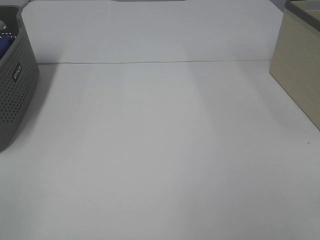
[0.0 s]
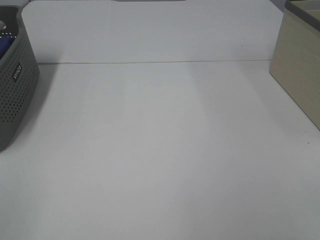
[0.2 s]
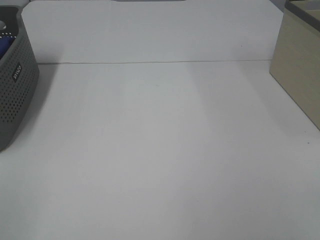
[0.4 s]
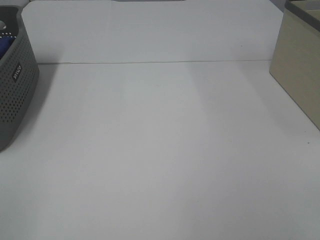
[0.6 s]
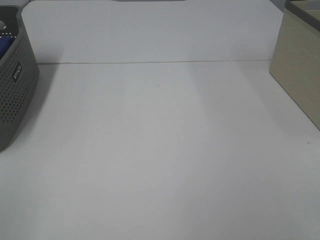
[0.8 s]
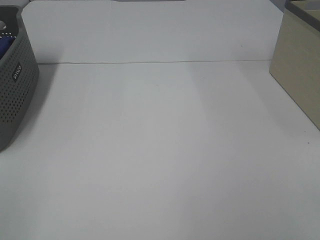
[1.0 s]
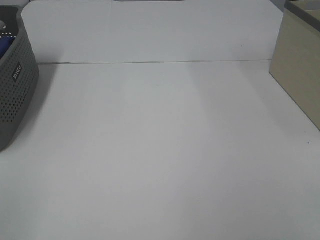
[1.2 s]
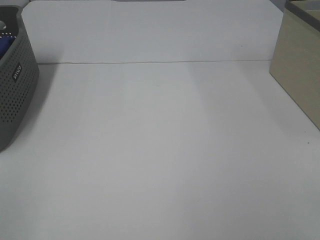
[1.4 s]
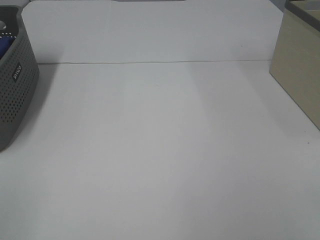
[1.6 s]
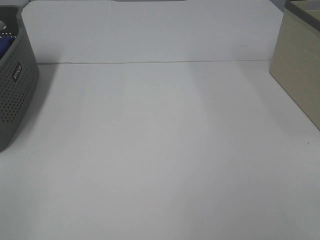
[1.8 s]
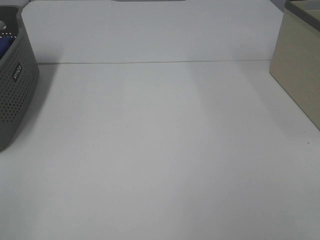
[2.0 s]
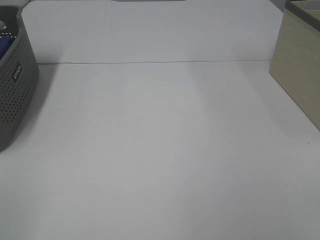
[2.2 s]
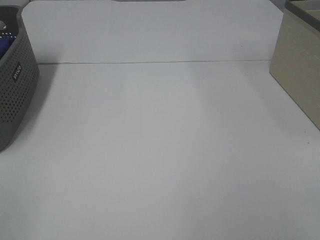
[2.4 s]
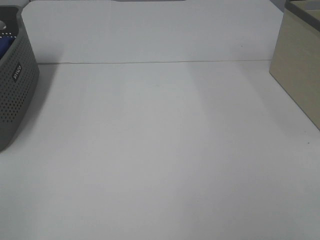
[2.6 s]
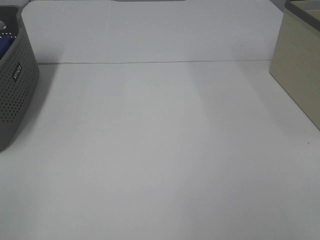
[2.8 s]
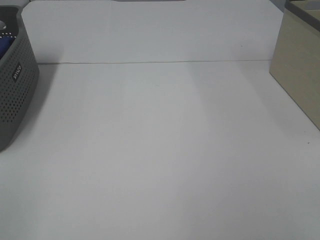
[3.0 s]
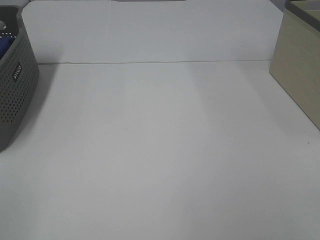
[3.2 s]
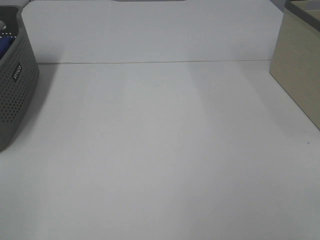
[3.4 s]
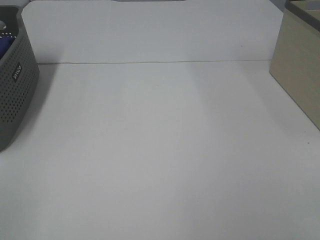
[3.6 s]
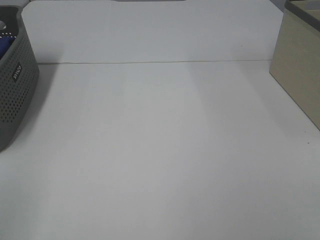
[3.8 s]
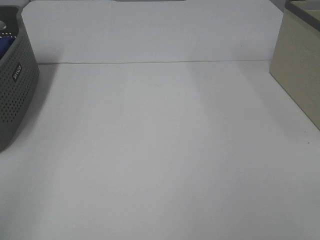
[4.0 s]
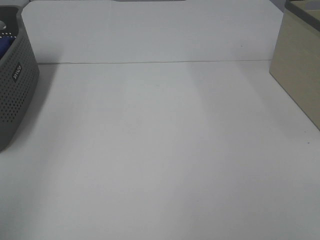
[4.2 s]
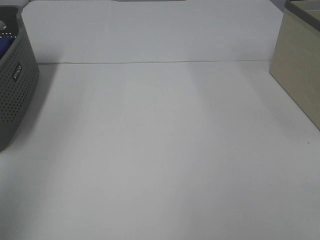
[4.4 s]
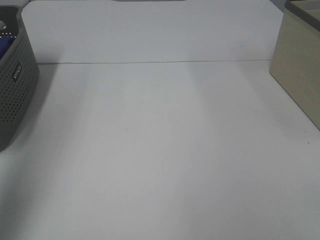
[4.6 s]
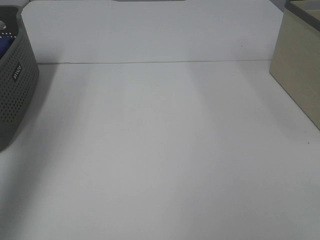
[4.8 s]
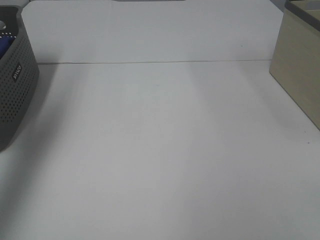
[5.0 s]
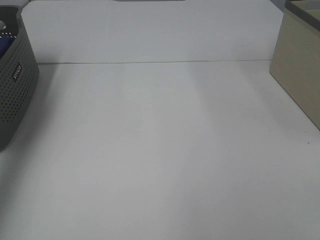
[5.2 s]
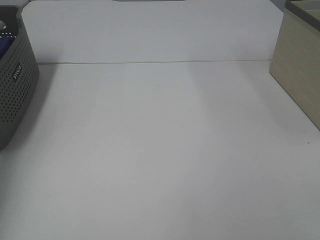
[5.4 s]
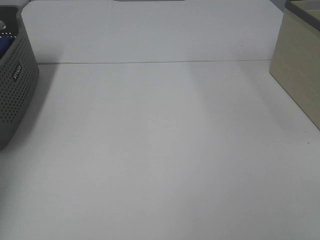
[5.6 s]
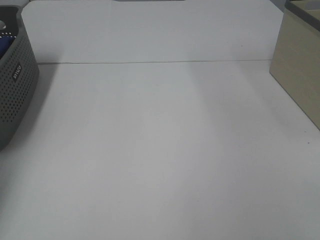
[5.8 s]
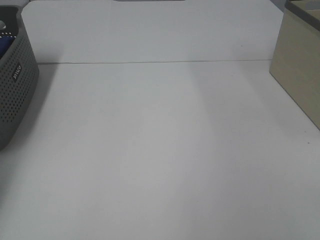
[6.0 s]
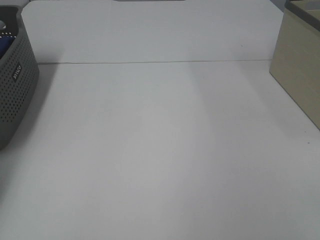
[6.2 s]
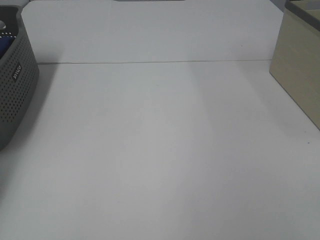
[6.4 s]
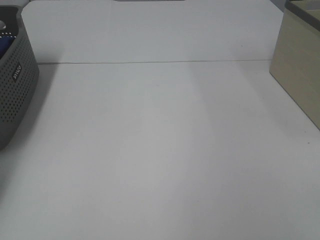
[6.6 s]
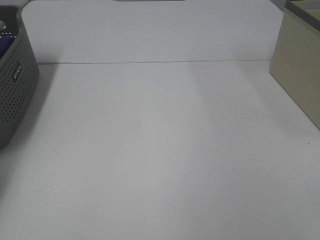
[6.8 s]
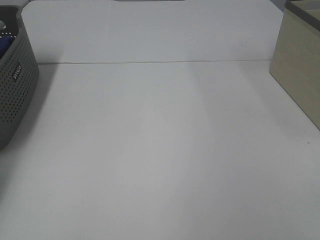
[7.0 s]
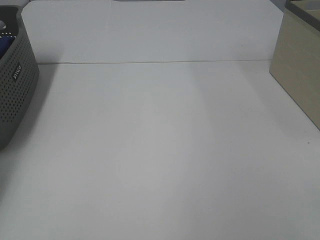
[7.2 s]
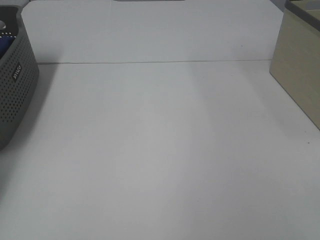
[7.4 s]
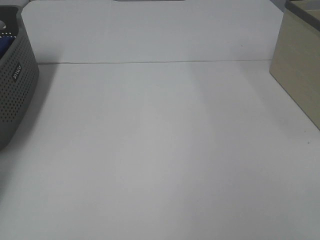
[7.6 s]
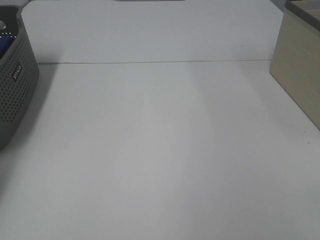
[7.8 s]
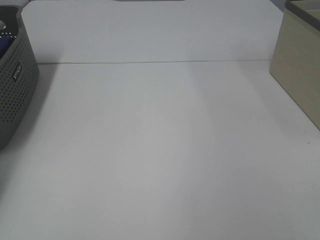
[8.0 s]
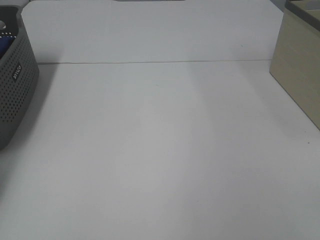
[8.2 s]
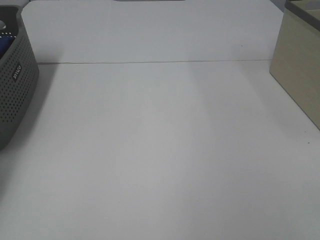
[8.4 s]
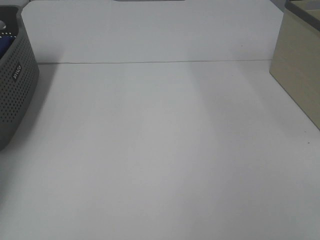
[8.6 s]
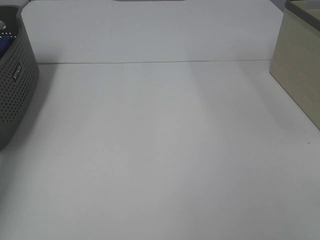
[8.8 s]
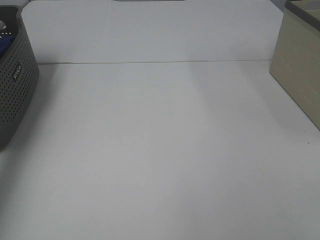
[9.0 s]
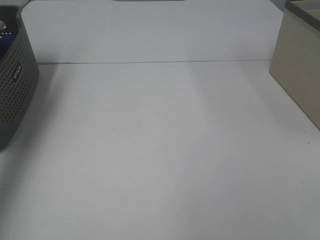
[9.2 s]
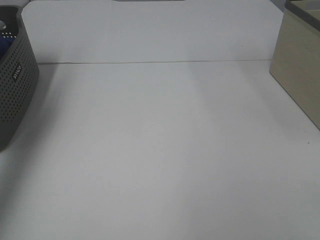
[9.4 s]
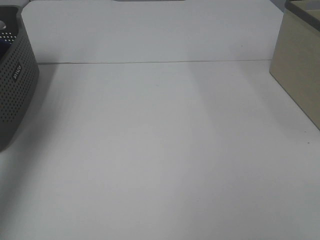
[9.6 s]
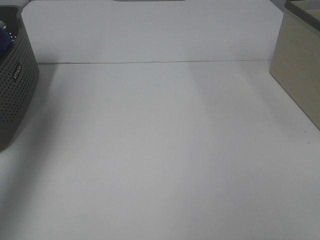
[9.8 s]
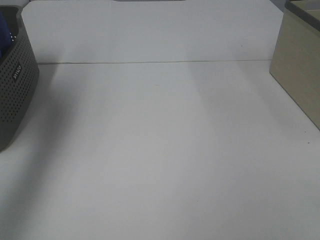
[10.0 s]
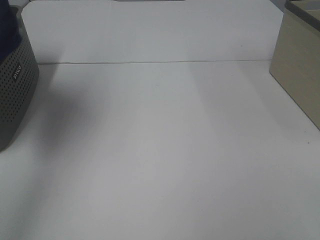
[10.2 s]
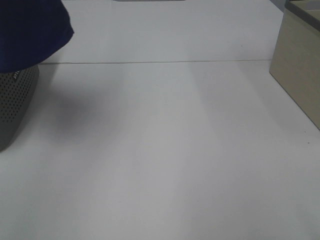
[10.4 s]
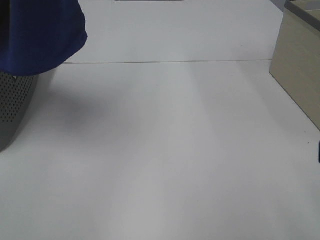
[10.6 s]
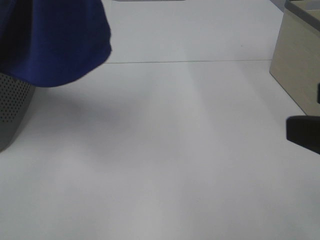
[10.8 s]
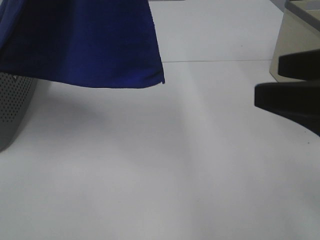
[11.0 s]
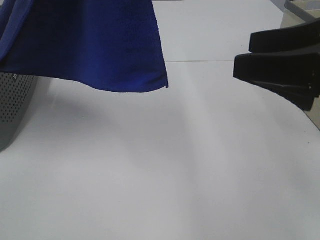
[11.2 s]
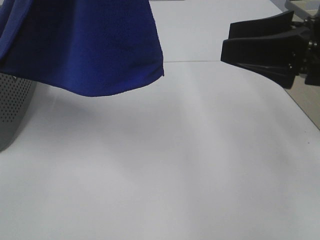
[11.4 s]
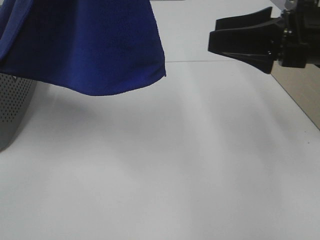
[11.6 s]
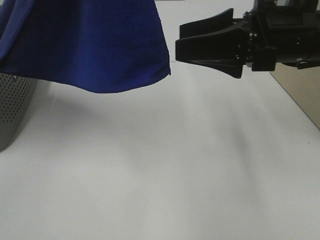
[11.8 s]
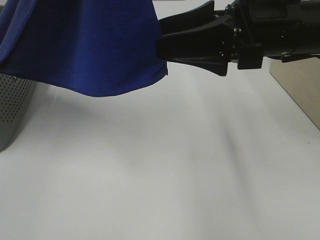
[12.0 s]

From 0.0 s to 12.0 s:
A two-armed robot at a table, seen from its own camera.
Task of the whole recording: Remove the towel and place it.
From 0.0 s to 3.0 s: The two grippers keep their place.
From 3.0 s to 4.4 s: The left gripper travels upward and forward by some 20 cm.
From 4.4 s to 6.0 s: The left gripper shifts some 40 cm forward and downward.
From 7.6 s to 9.0 s: The left gripper travels upward by some 20 cm, and closes up.
From 9.0 s to 10.4 s: The left gripper travels upward, to the right and backward by some 30 cm.
From 10.4 s to 12.0 s: The left gripper heads to the right and backward, covering some 10 cm. Meanwhile the right gripper travels forward and to the left by roughly 25 cm.

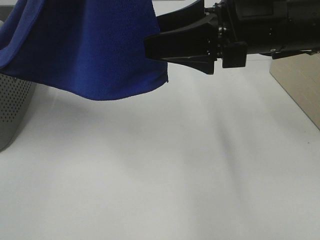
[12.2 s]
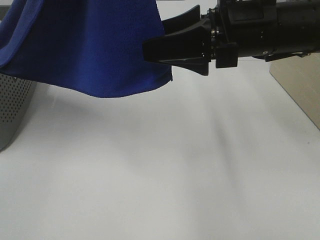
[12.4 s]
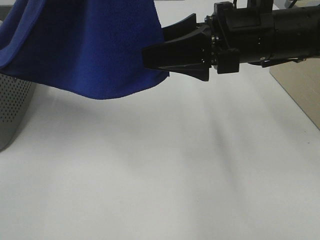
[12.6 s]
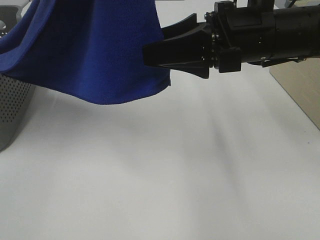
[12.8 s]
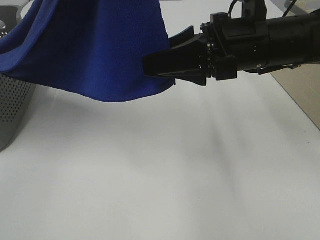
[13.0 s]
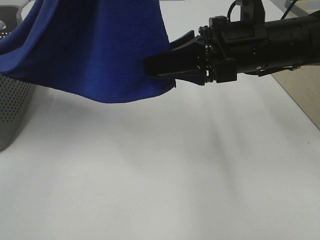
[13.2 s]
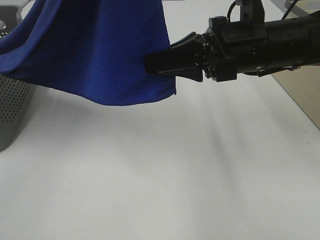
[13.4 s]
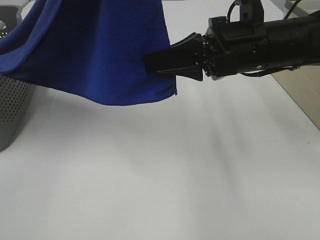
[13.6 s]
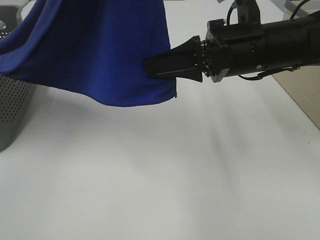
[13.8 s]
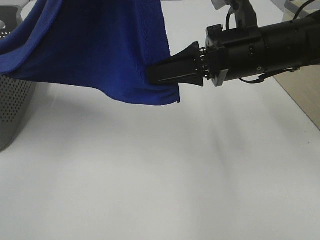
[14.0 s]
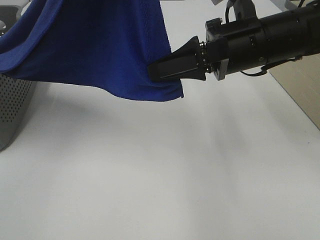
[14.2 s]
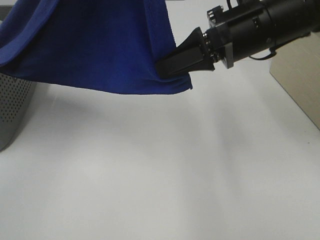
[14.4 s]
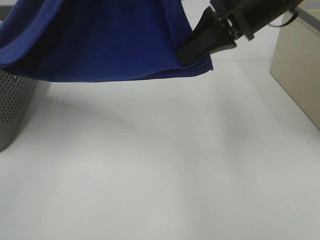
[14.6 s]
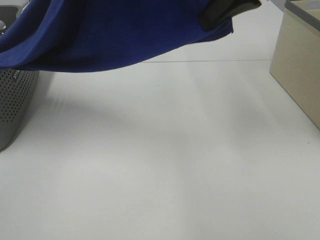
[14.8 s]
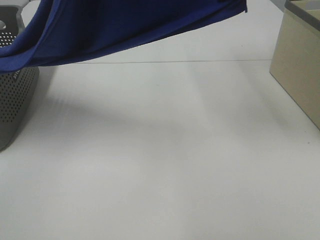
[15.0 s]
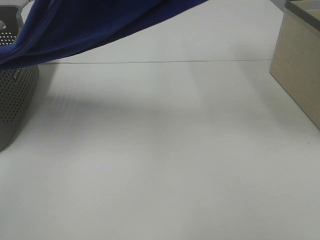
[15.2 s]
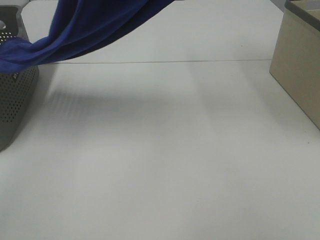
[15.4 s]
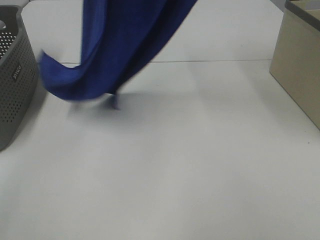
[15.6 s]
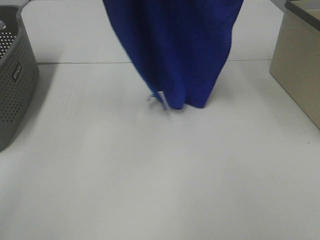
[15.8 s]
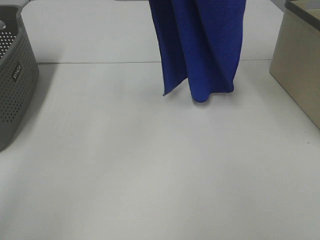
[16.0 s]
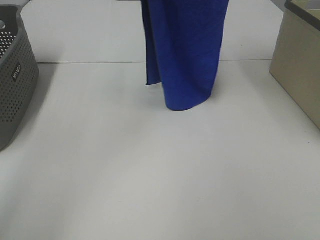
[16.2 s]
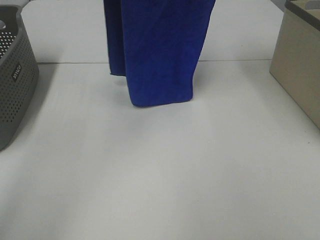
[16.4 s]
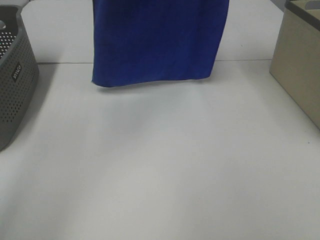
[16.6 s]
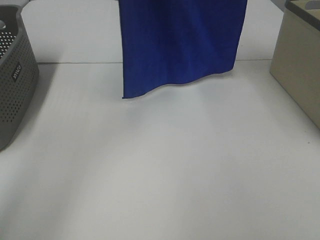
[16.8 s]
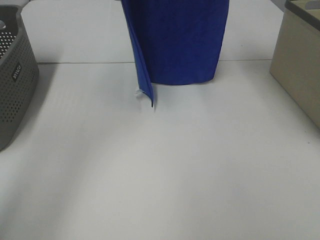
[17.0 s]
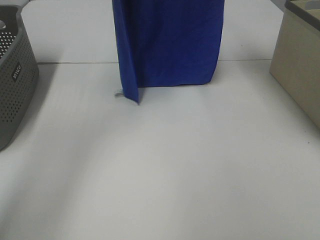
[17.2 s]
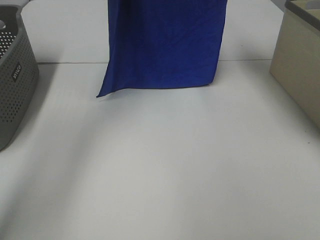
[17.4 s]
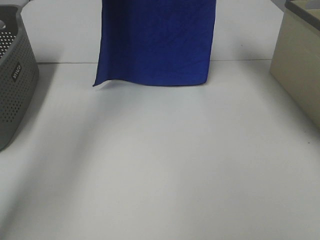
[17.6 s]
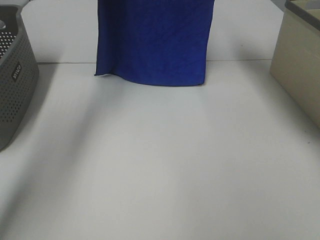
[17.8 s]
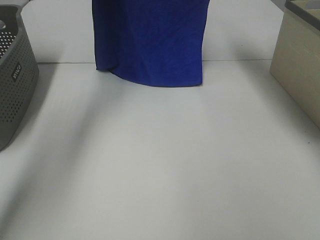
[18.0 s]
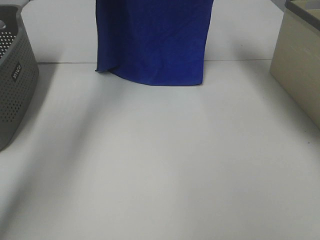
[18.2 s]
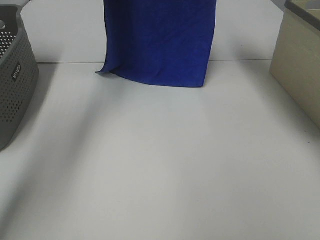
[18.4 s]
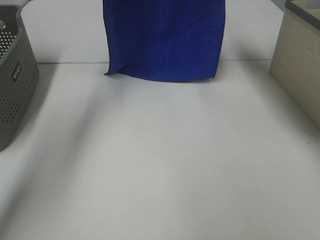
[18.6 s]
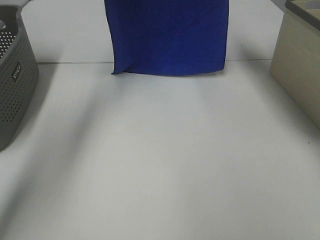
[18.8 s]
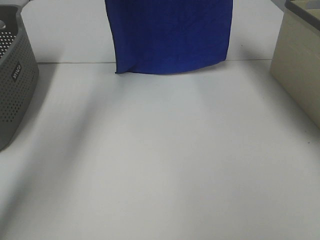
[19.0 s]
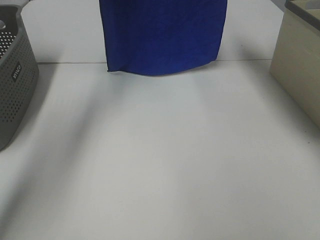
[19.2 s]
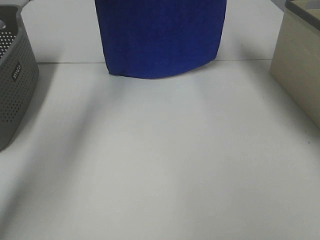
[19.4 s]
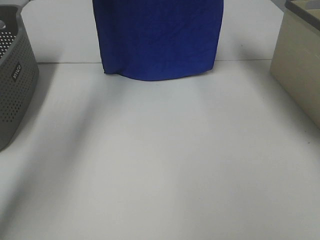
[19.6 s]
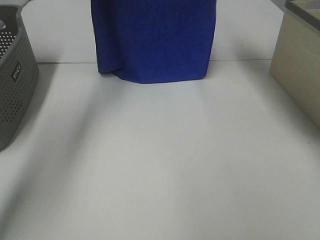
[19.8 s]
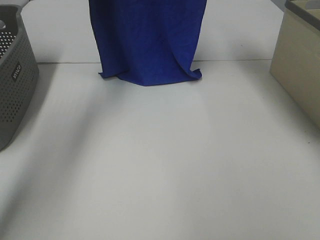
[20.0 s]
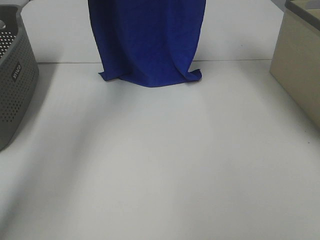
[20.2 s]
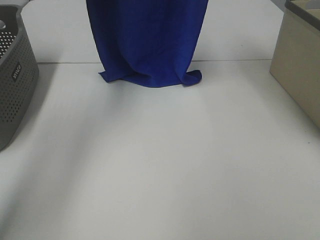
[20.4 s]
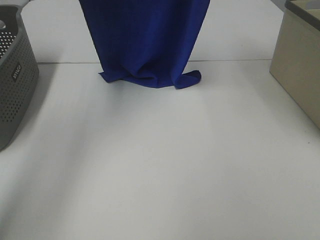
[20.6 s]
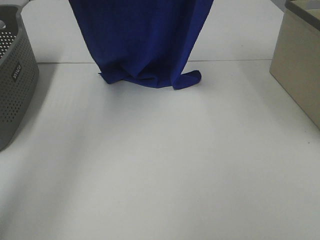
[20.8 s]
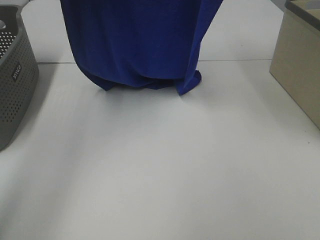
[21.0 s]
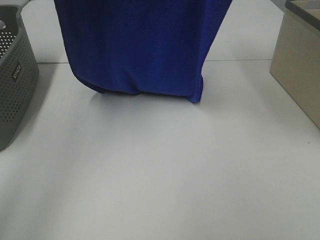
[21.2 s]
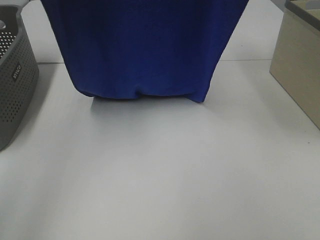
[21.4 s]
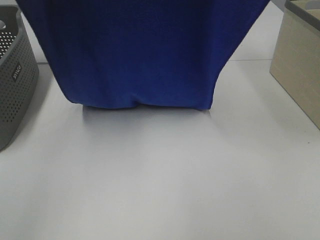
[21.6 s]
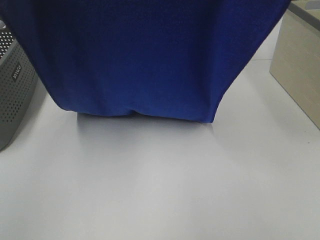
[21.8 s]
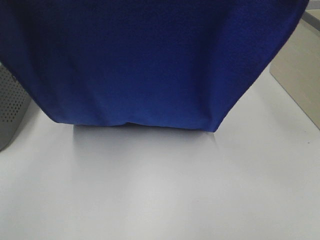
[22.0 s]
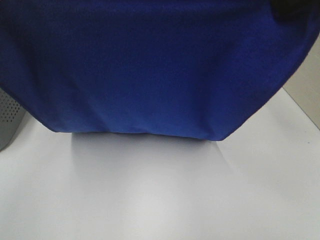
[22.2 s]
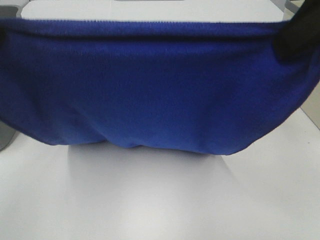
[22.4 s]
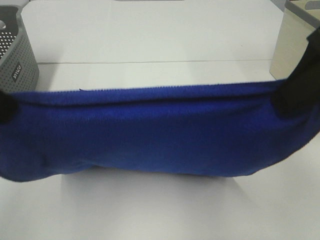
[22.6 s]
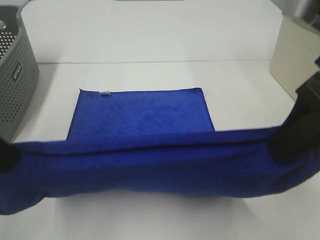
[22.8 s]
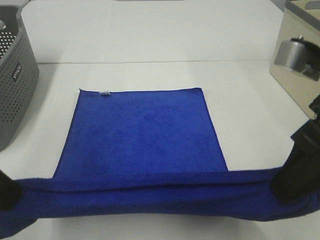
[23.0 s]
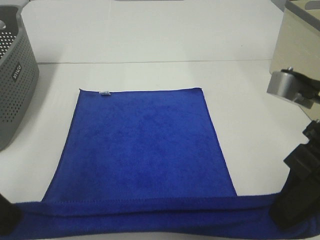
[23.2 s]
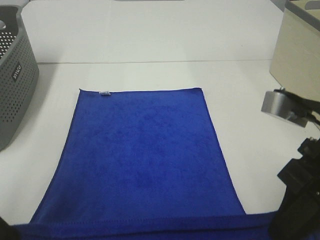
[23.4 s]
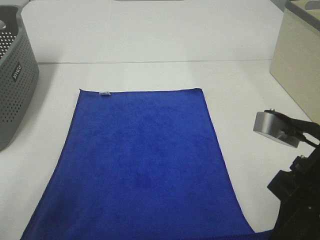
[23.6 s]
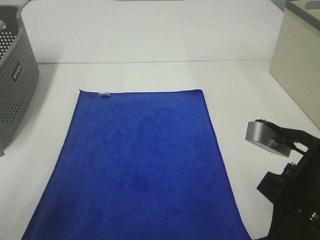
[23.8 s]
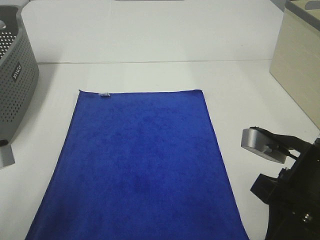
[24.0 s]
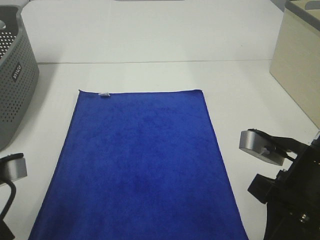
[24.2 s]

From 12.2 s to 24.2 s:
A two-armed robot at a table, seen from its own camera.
Task of the whole recording: Remove the towel and place it.
Step, from 12.2 s to 15.6 s: Right hand: grab a corner of the blue towel and straighten it.
Step, from 15.8 s to 20.6 s: Left hand: spread the blue towel flat on the table.
Step, from 15.8 s to 20.6 s: Right hand: spread the blue towel flat on the table.
From 12.2 s to 13.8 s: The right gripper closes up.
From 13.8 s to 15.2 s: The right gripper is displaced upward by roughly 20 cm.
From 15.2 s to 16.6 s: The right gripper travels forward and upward by approximately 10 cm, while the left gripper is displaced forward by roughly 10 cm.
From 16.6 s to 18.2 s: The grippers both shift forward and downward by roughly 10 cm.
From 18.2 s to 19.8 s: The grippers move only a little.
From 19.8 s to 21.2 s: Both grippers move backward, some 15 cm.
From 21.2 s to 22.6 s: The grippers both shift backward and downward by roughly 20 cm.
From 22.6 s to 24.2 s: Both grippers travel together downward, approximately 15 cm.
